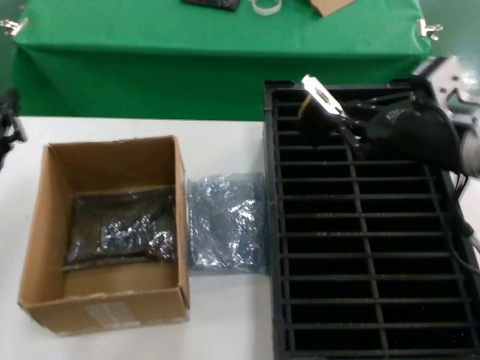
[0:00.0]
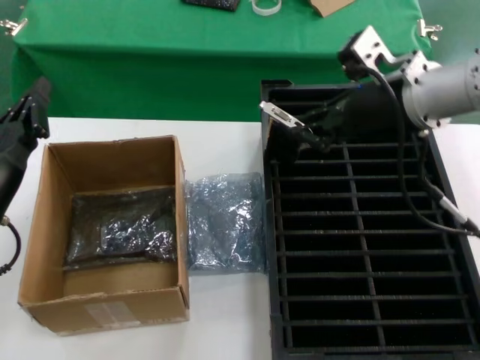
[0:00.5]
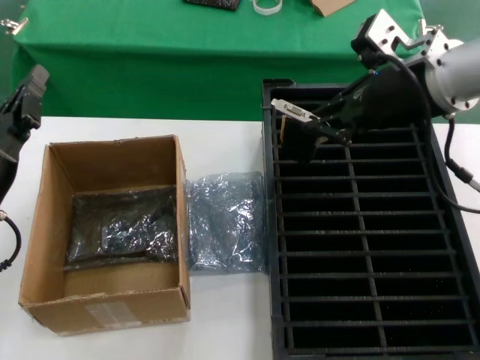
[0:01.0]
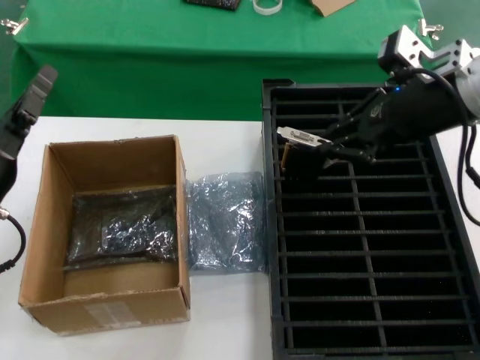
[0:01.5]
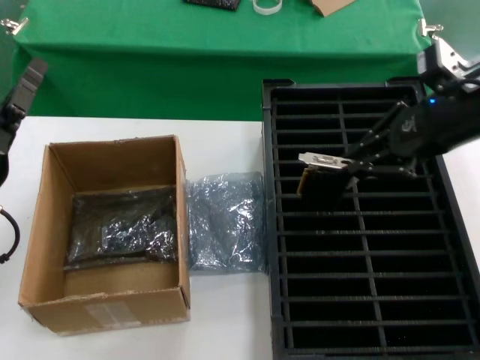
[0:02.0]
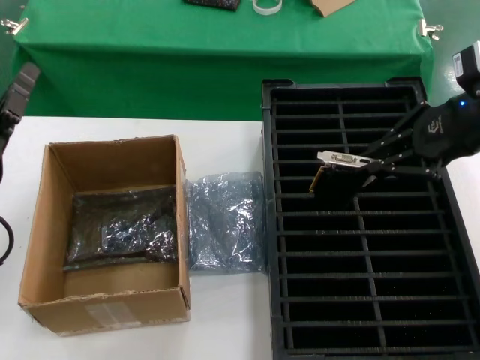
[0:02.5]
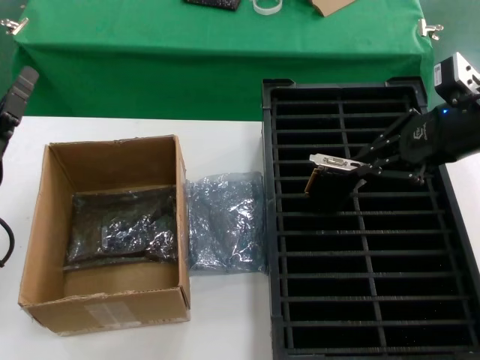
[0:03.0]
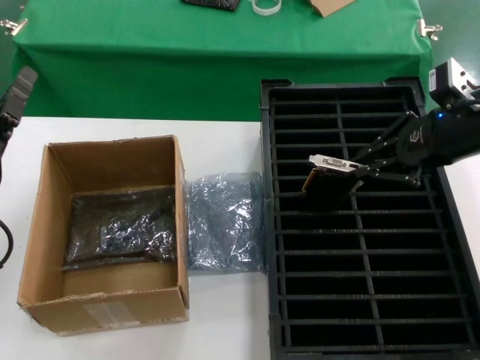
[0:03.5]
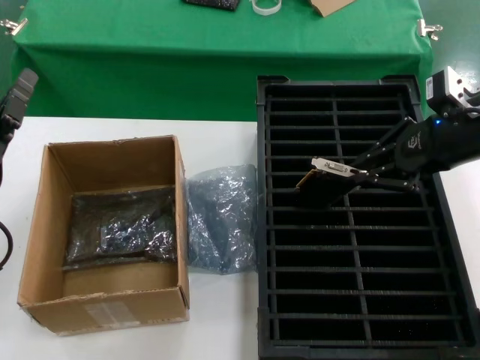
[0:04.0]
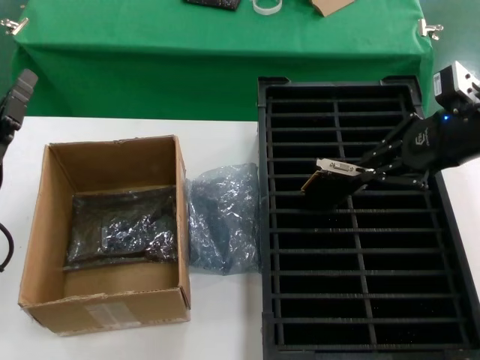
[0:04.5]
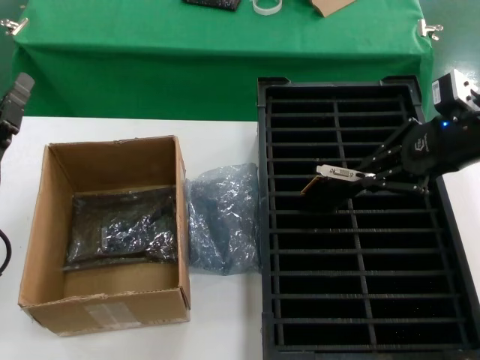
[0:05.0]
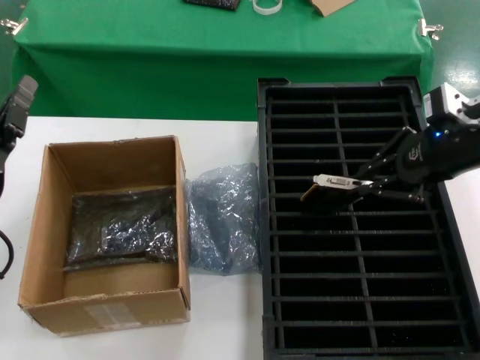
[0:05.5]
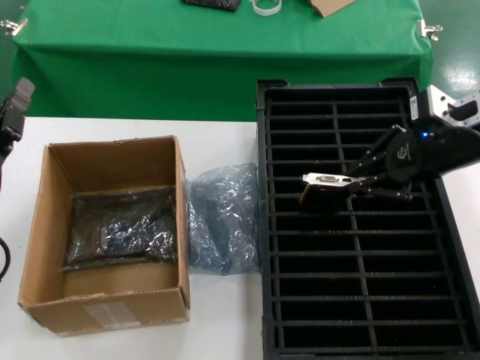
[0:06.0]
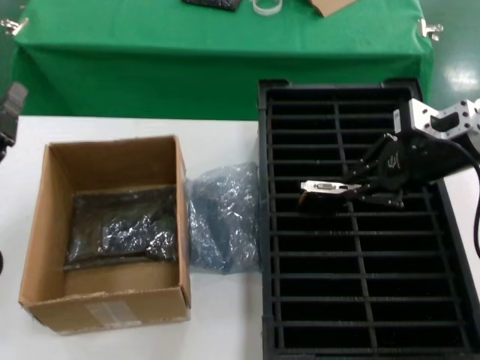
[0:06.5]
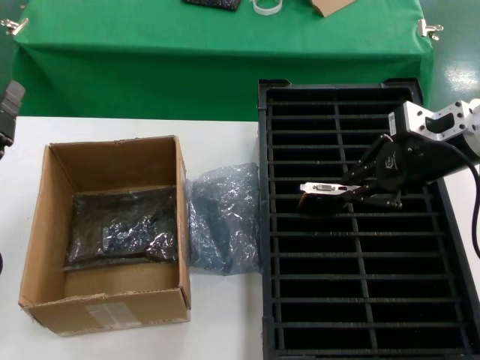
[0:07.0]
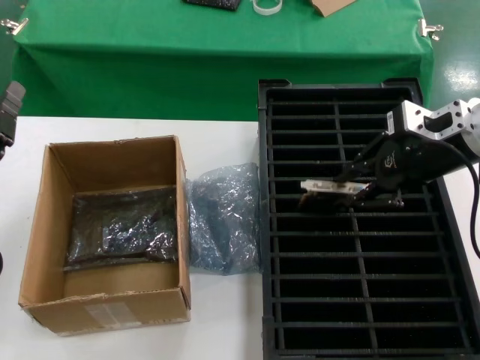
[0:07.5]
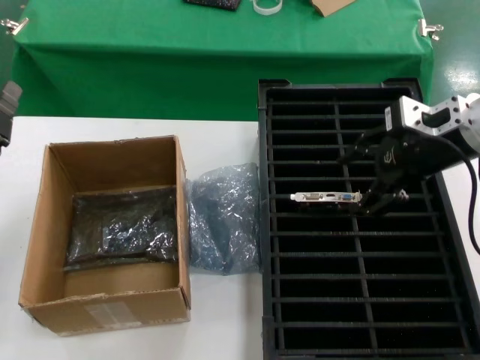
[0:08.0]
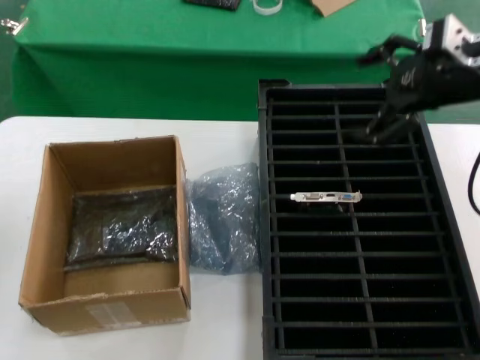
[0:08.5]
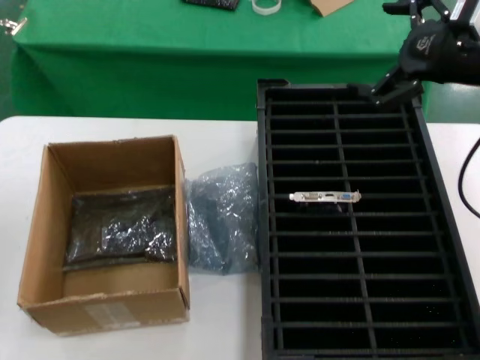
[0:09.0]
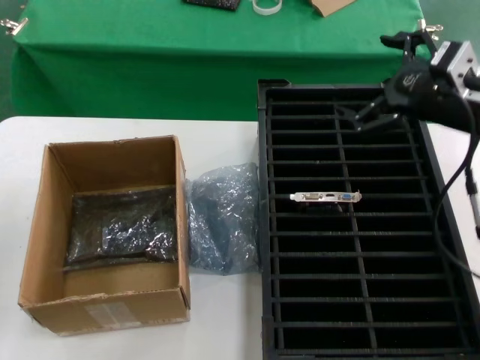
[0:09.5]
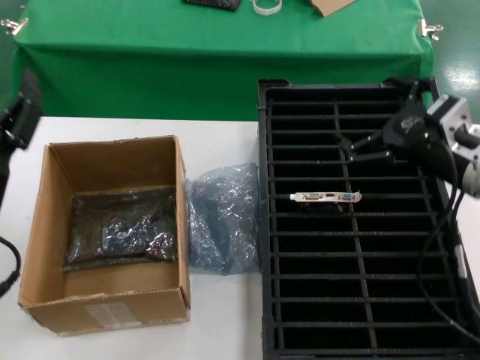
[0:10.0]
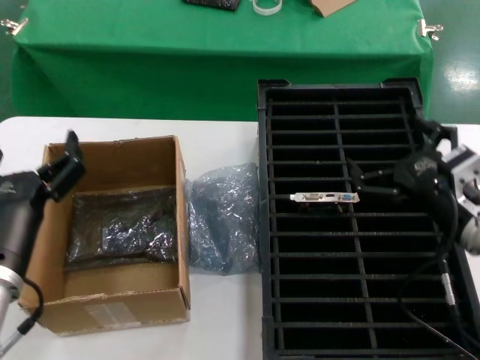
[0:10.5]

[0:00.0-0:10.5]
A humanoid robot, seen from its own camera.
Task of the whole recording: take out graphics card from box remove packaging put into black container.
Step, 0:00.0 to 0:08.0: Place the hard disk in the hard disk enclosure.
0:00.0 to 0:02.0: The right hand travels forward and upward by about 10 cm.
0:02.0 to 0:04.0: The hands stay close to where they were, moving slightly.
0:04.0 to 0:06.5: The hands move only a little.
0:06.5 to 0:08.5: The right hand moves upward, some 5 cm.
0:08.5 to 0:10.5: The right hand moves downward and backward, roughly 25 cm. The left hand heads to the right, covering about 10 cm.
